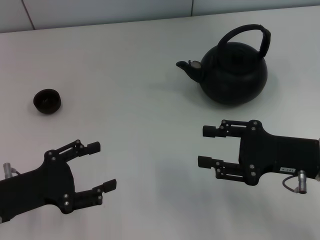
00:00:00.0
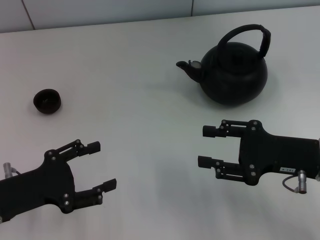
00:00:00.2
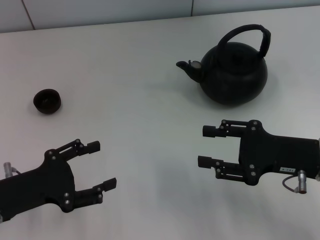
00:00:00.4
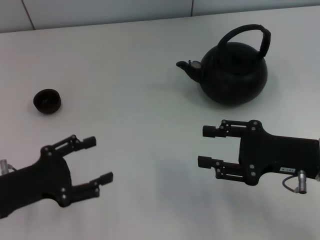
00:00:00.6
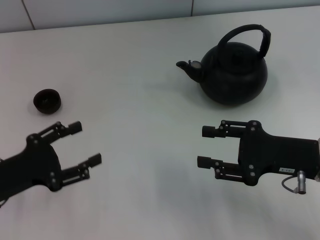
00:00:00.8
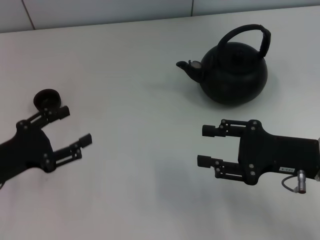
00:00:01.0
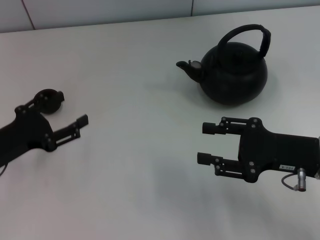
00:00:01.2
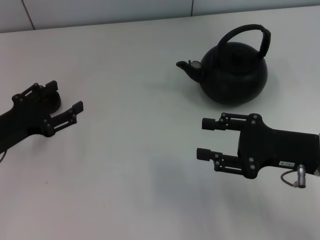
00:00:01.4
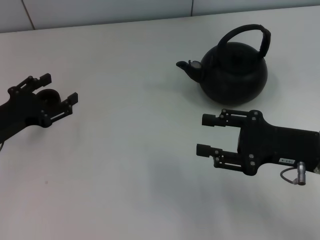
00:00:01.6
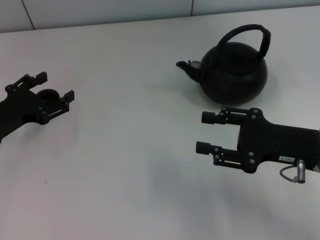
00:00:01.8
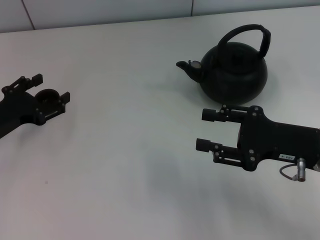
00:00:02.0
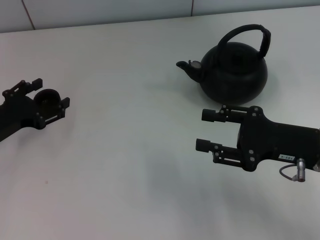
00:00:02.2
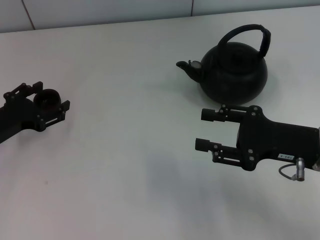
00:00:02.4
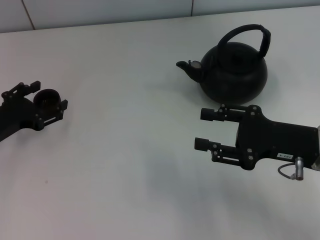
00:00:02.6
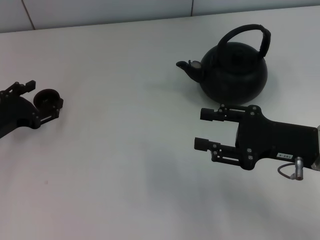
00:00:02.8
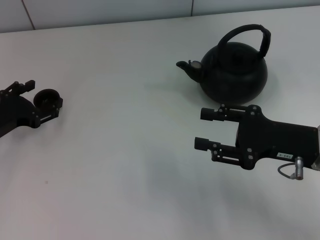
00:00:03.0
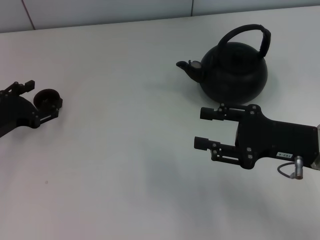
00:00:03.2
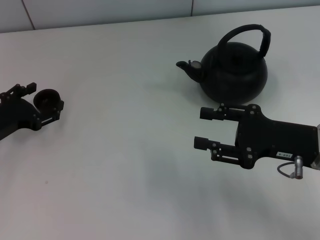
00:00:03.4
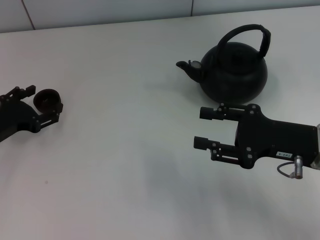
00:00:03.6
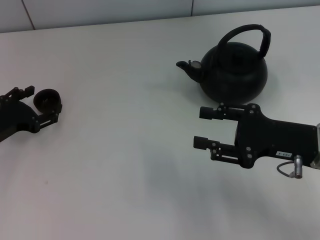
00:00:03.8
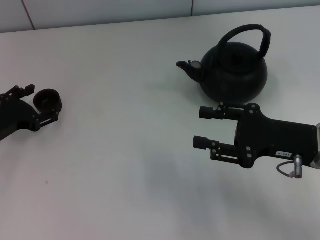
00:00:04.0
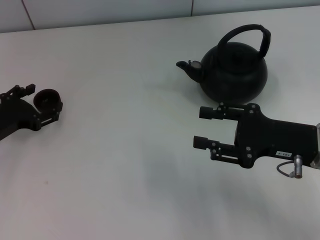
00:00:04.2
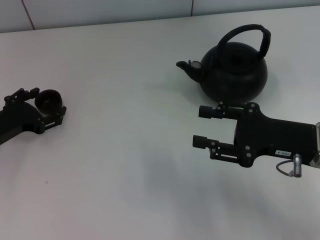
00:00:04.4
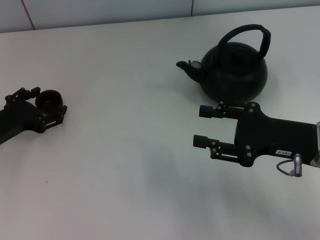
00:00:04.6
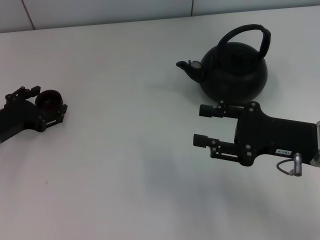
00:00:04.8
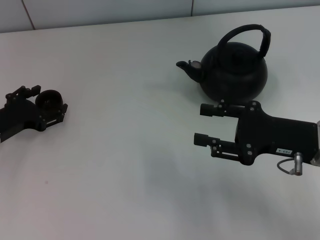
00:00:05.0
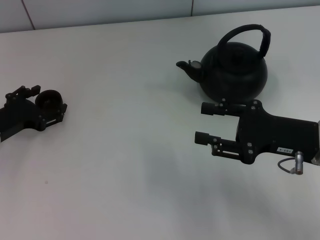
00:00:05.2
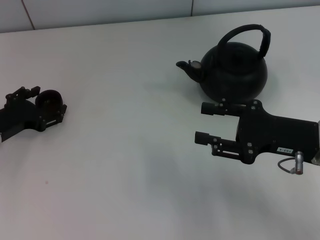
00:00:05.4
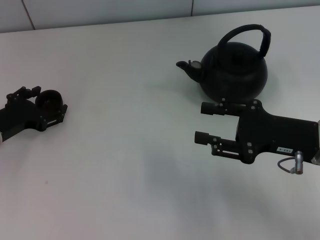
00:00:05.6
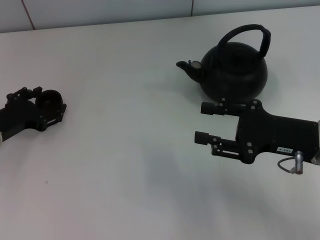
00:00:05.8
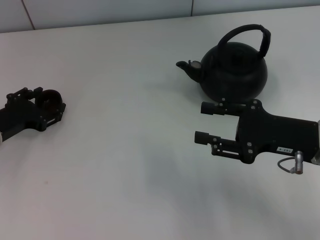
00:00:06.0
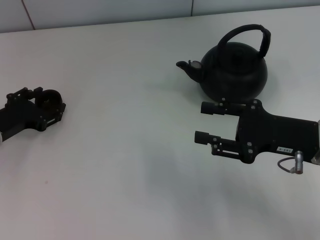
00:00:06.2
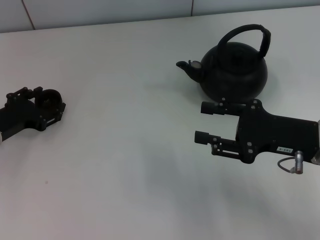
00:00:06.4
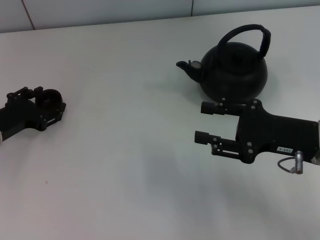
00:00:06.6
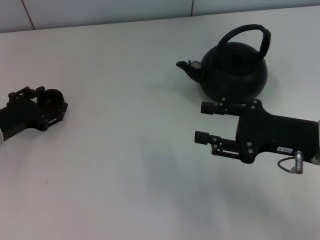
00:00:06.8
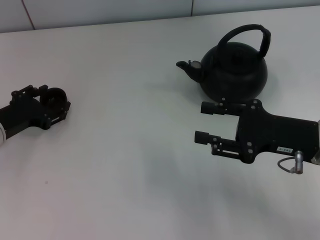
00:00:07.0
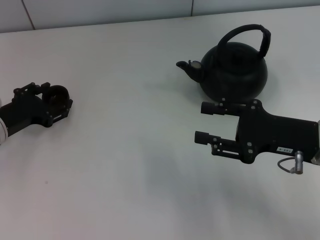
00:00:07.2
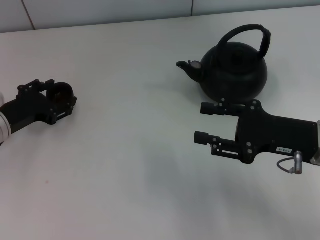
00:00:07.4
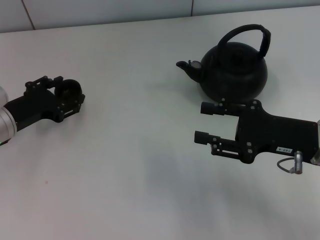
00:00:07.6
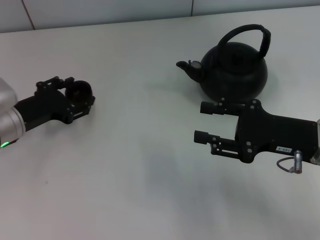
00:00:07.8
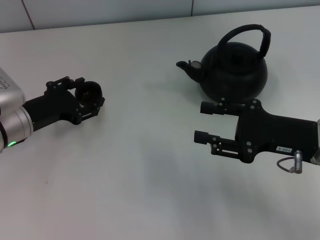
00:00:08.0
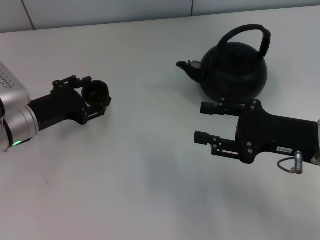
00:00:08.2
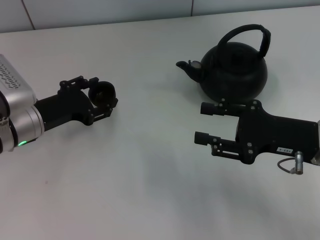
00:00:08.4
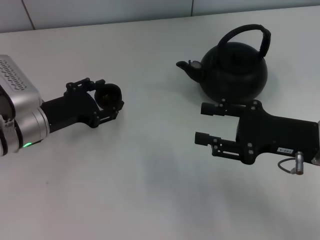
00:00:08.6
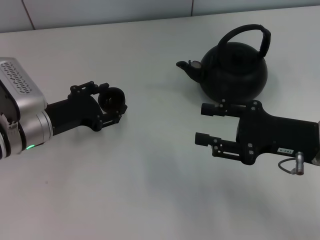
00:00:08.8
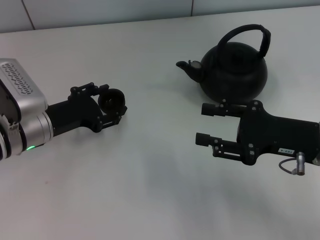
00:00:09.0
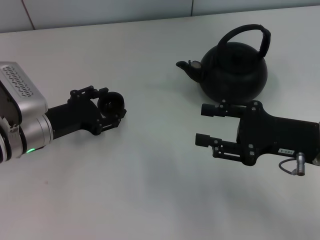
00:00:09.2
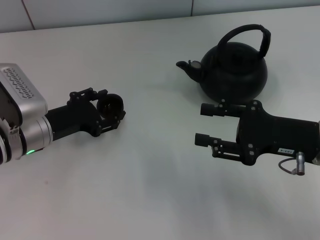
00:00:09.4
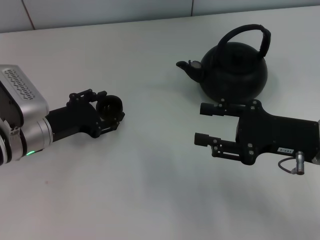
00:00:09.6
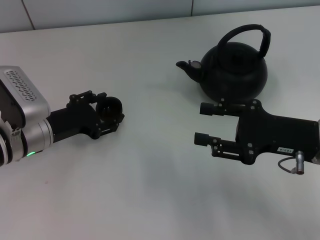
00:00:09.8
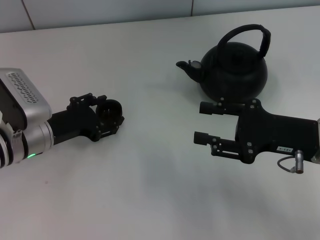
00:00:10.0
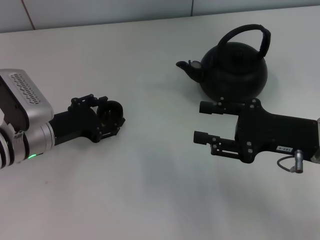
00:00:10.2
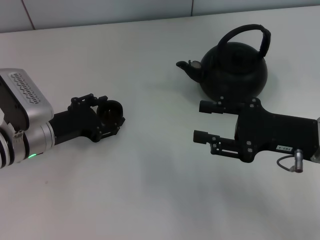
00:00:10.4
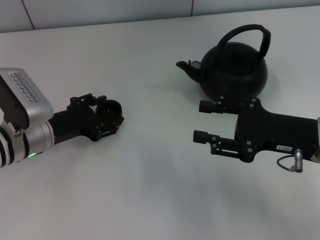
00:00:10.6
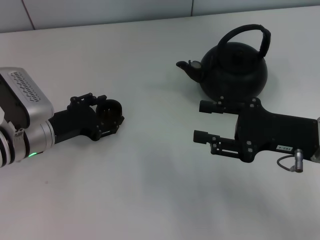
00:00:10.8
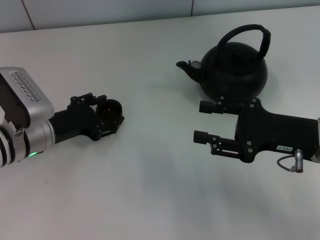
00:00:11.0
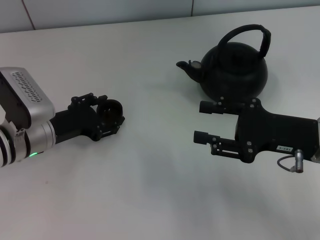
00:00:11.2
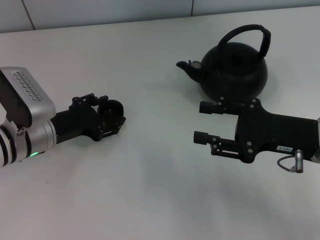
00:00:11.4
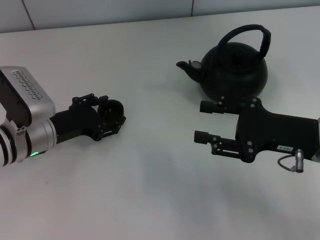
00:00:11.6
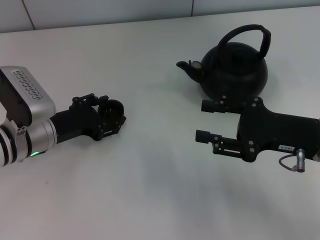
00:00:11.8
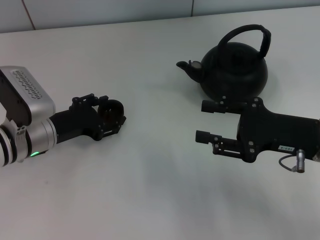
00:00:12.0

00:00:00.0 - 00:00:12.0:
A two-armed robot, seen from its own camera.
Task of the whole recording: Grasp the handle of the teapot with one hand and pour tea into the teacup.
Step, 00:00:00.0 - 00:00:07.2: Pick up the teacup with the left gripper.
00:00:00.0 - 00:00:01.6: The left gripper travels forward by about 10 cm.
00:00:01.6 - 00:00:04.4: There are only small adjustments of the grippers.
00:00:04.4 - 00:00:06.0: The left gripper closes up.
00:00:06.0 - 00:00:07.6: The left gripper closes its fingers.
00:00:07.6 - 00:00:09.0: The left gripper travels to the right by about 5 cm.
00:00:09.0 - 00:00:10.4: Neither gripper changes place.
00:00:10.4 - 00:00:12.0: The two grippers keep their place.

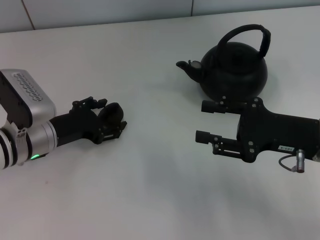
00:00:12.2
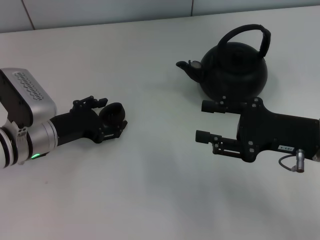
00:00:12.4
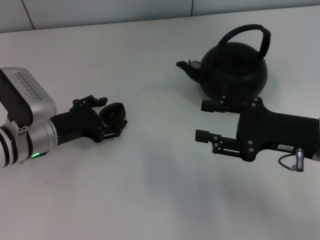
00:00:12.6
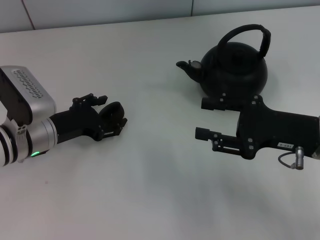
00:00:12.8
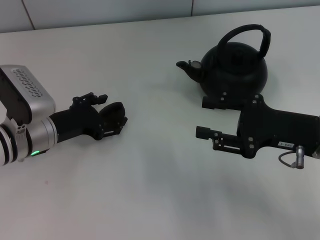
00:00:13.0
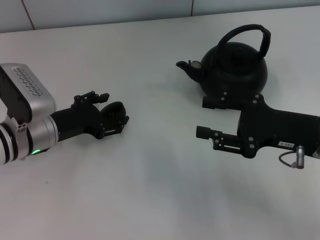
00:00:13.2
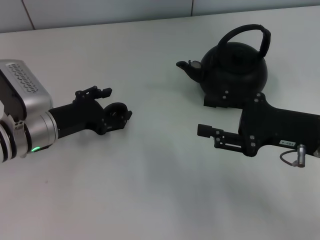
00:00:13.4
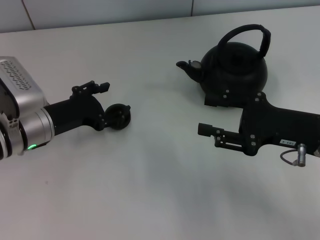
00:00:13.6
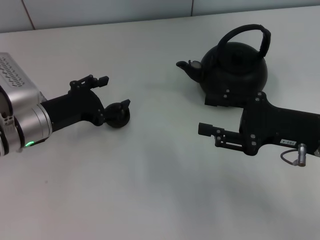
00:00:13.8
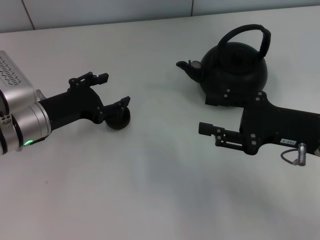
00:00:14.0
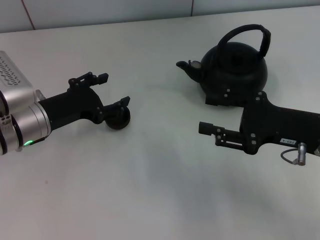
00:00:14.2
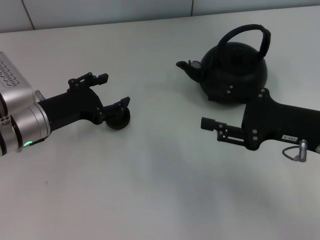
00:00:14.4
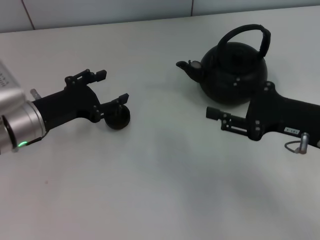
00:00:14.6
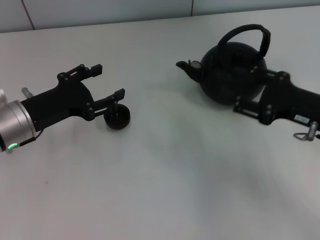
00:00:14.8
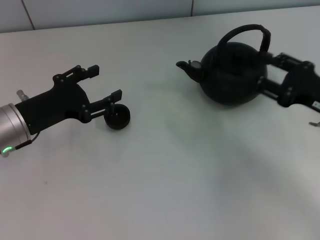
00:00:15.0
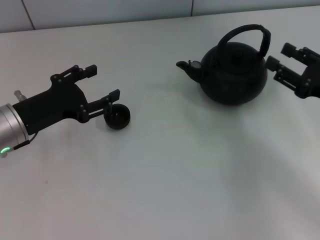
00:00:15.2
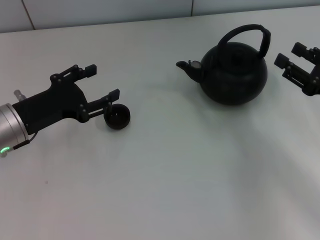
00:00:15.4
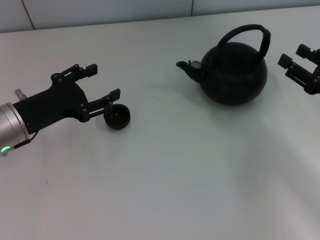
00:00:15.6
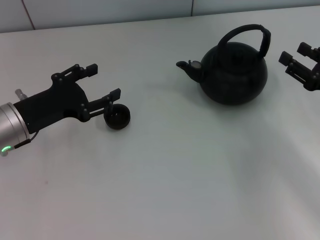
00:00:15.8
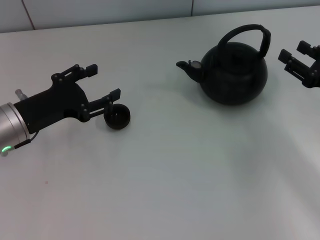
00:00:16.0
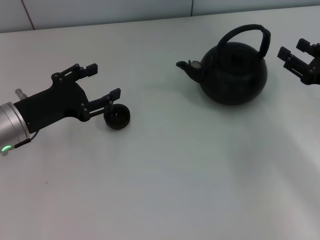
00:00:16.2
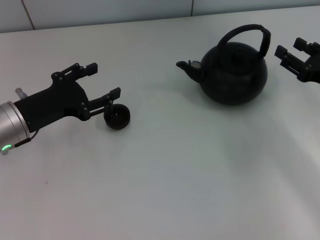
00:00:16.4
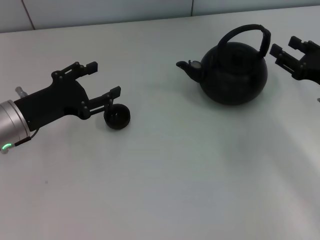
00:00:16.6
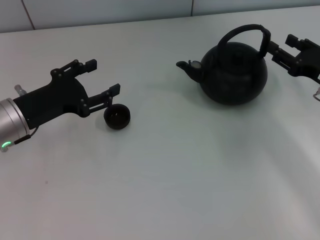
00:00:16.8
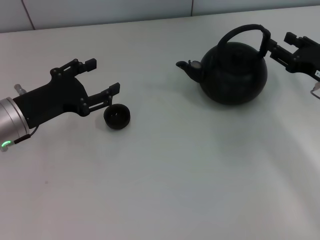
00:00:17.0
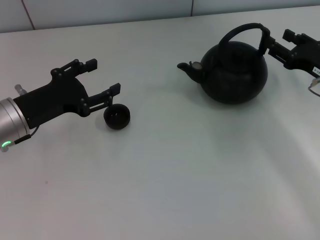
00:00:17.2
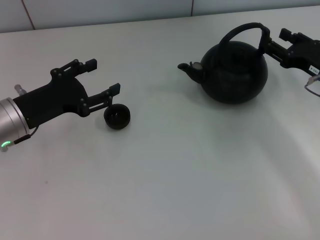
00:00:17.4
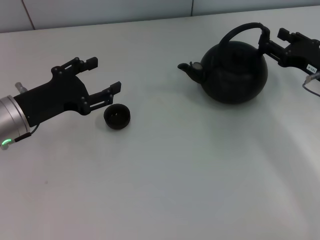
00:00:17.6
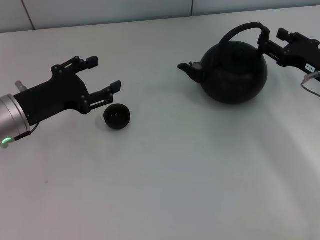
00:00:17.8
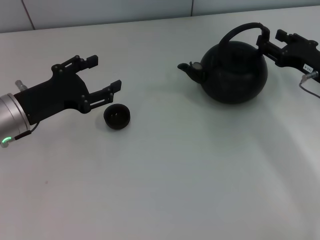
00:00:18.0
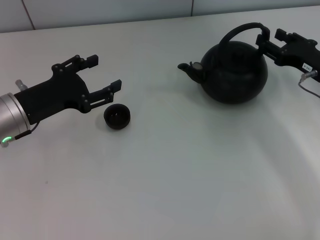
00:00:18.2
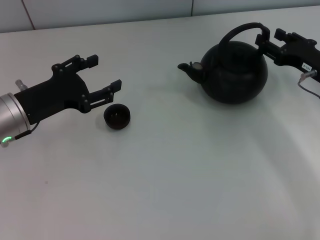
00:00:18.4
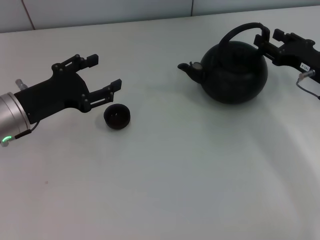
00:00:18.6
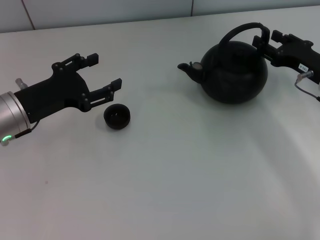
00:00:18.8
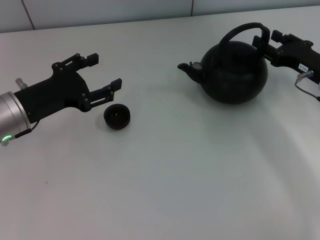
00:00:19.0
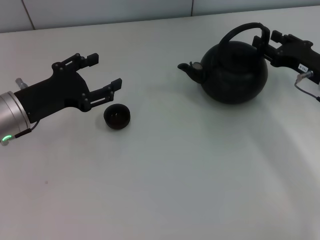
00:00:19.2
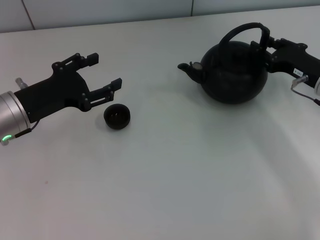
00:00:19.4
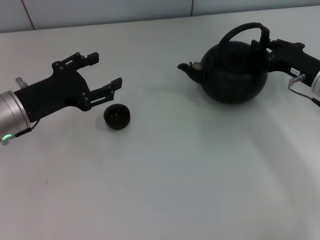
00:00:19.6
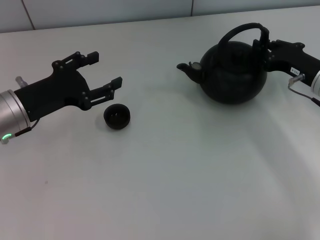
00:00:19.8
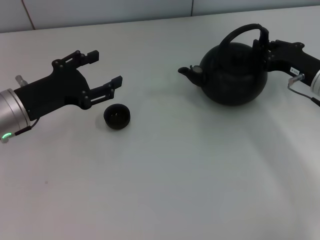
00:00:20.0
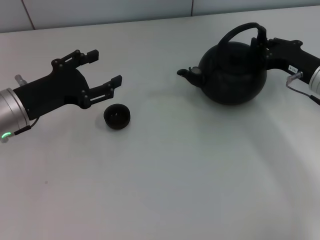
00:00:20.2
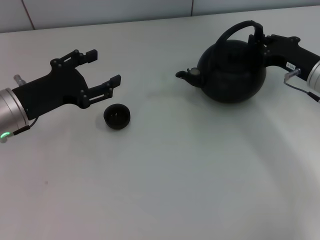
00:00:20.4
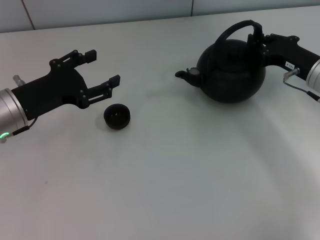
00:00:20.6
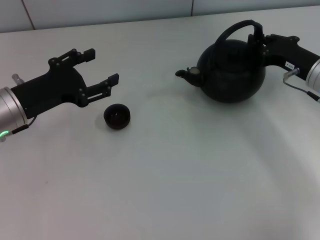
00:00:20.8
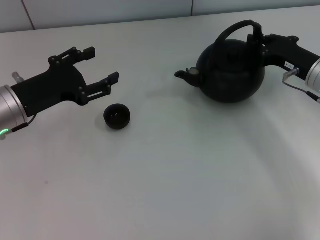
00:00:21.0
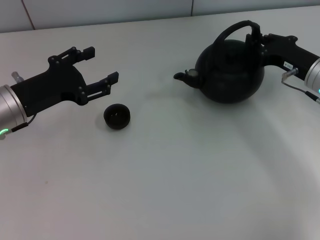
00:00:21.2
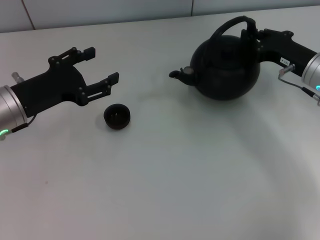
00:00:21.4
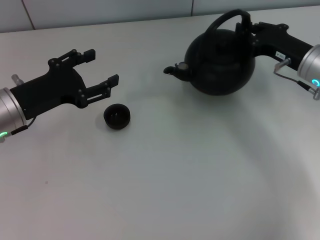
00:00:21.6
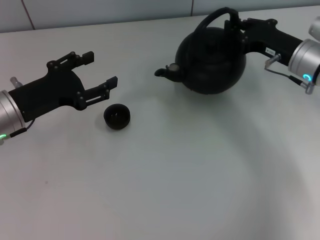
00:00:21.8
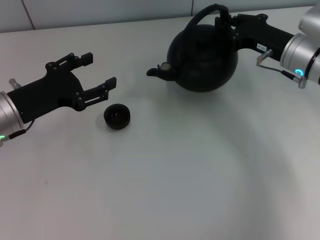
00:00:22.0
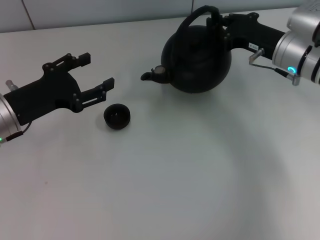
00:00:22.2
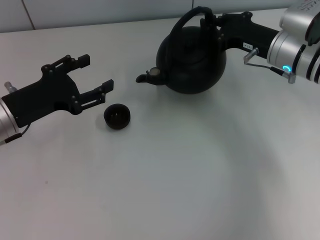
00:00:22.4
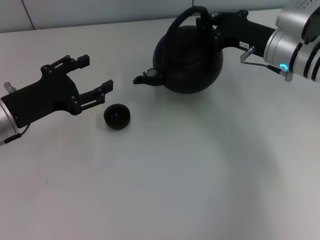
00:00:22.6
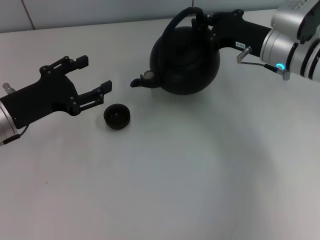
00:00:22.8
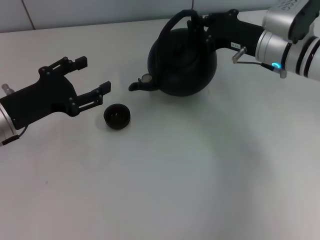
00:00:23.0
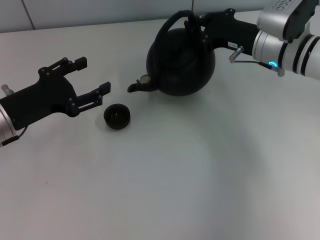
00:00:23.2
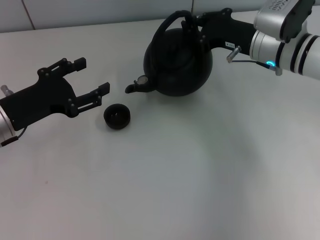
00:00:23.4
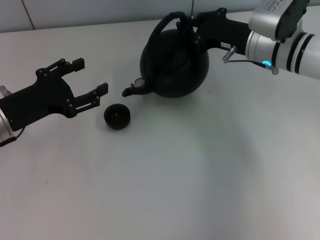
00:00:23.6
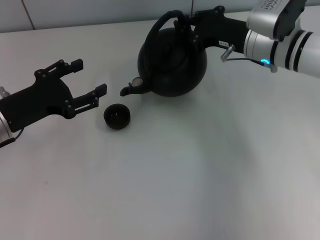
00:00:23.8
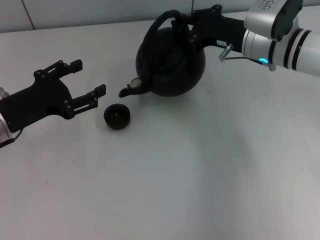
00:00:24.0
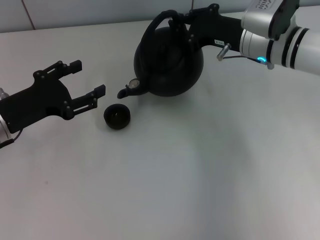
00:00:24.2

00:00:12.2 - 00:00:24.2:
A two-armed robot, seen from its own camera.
Task of the whole recording: Grasp the handle of the teapot with one hand and pour tea into the teacup.
Step, 00:00:14.2 - 00:00:21.4: Pick up the teapot with the right gripper.
00:00:12.2 - 00:00:13.8: The left gripper opens.
00:00:13.8 - 00:00:15.2: The right gripper shifts some 5 cm to the right.
00:00:15.2 - 00:00:16.6: The grippers stay close to where they were, moving slightly.
00:00:16.6 - 00:00:18.2: The grippers make only small movements.
00:00:18.2 - 00:00:19.8: The right gripper closes its fingers.
00:00:19.8 - 00:00:21.2: The grippers stay close to where they were, moving slightly.
00:00:21.2 - 00:00:22.6: The right gripper heads to the left, covering about 5 cm.
00:00:22.6 - 00:00:24.2: There are only small adjustments of the grippers.
